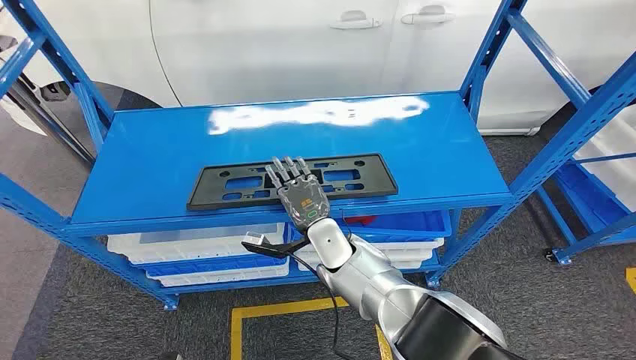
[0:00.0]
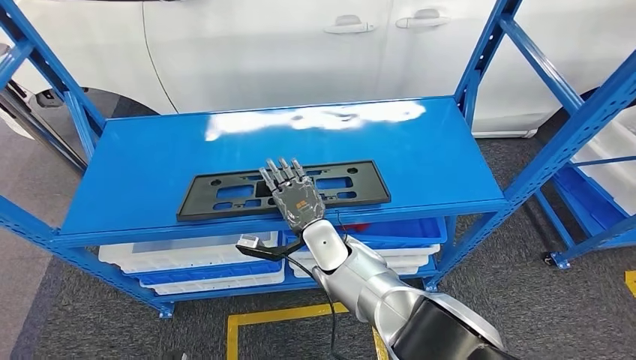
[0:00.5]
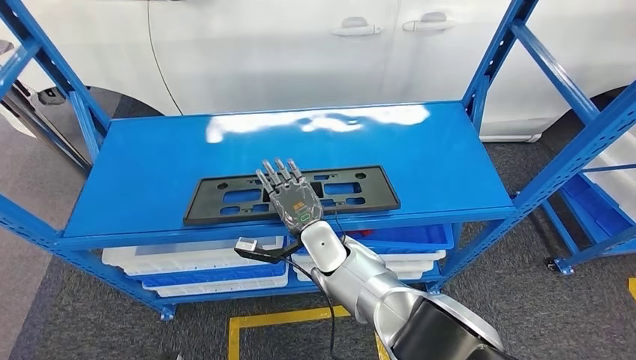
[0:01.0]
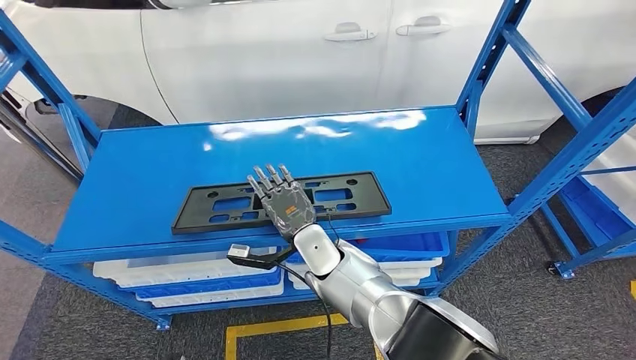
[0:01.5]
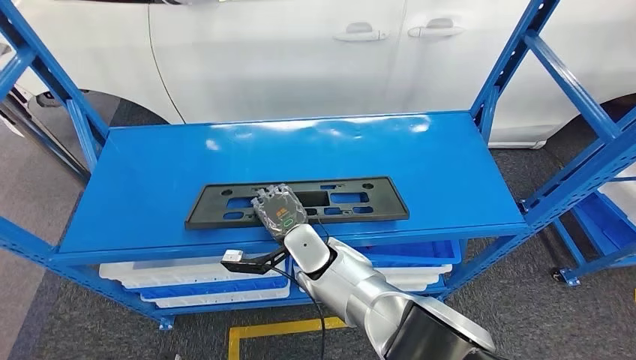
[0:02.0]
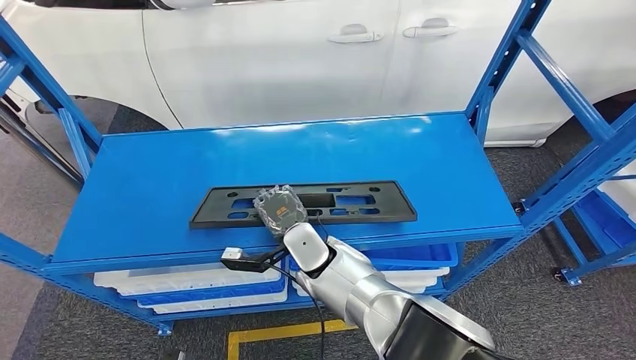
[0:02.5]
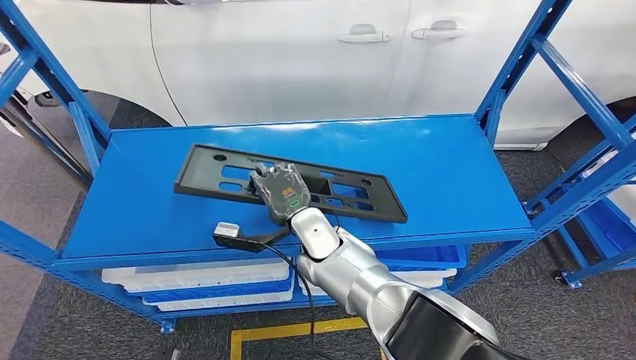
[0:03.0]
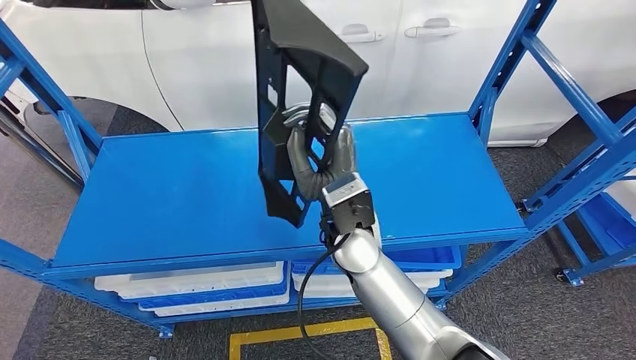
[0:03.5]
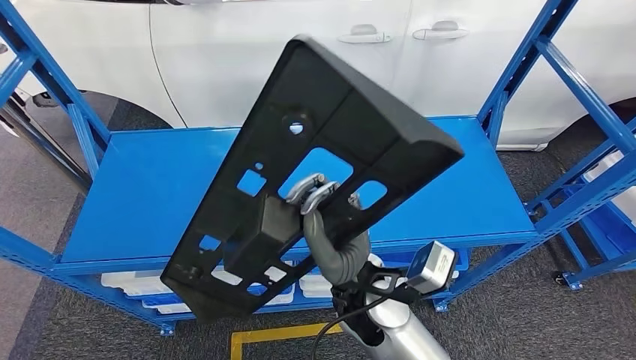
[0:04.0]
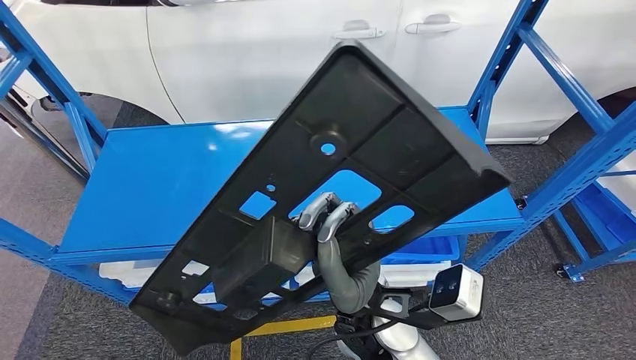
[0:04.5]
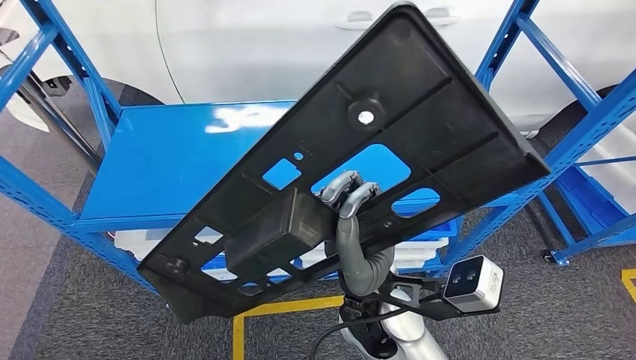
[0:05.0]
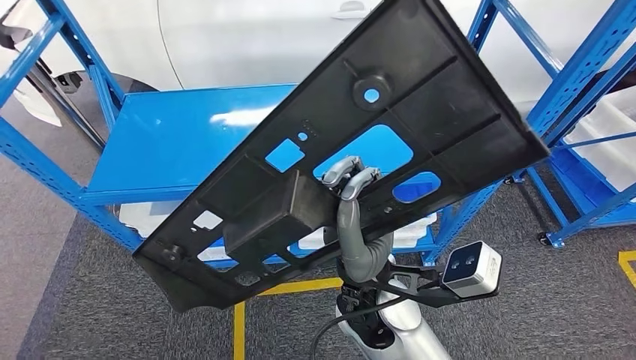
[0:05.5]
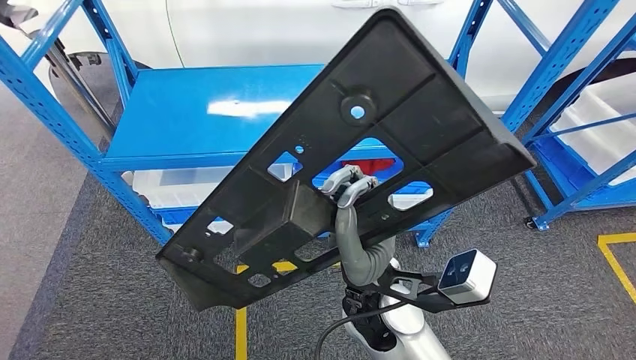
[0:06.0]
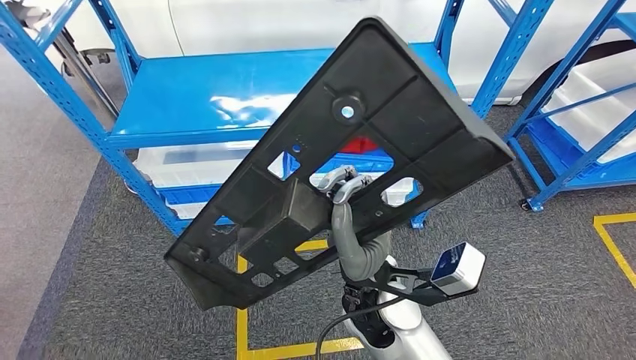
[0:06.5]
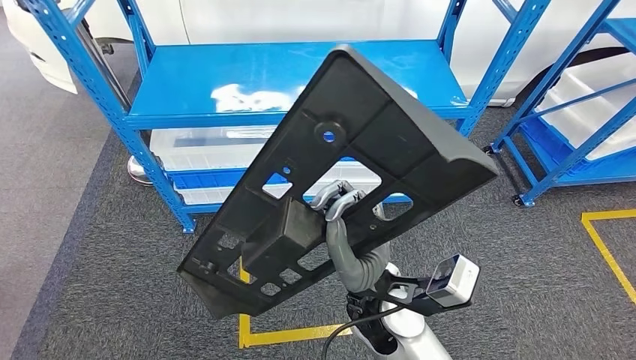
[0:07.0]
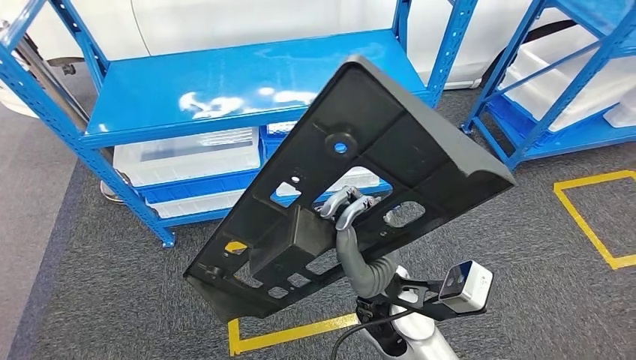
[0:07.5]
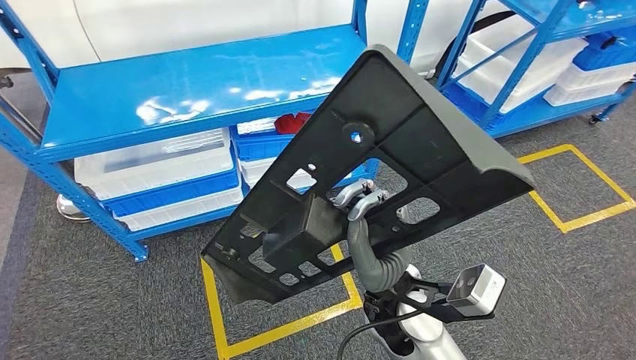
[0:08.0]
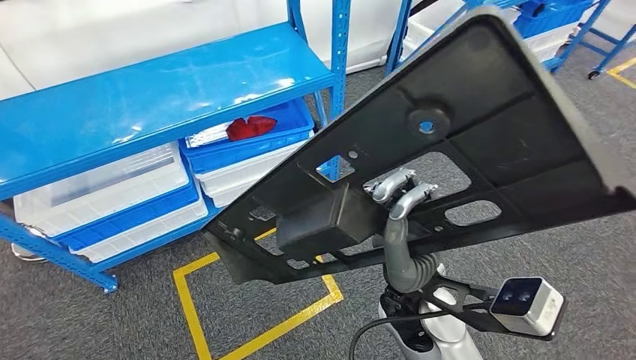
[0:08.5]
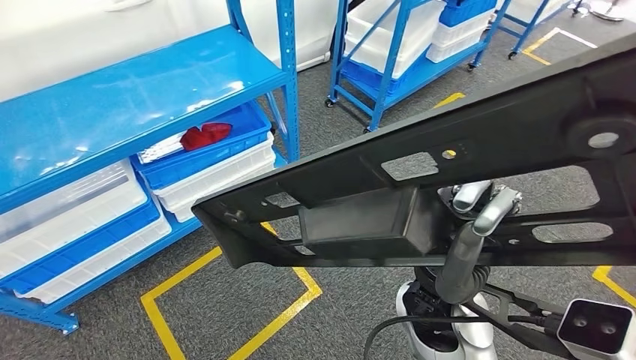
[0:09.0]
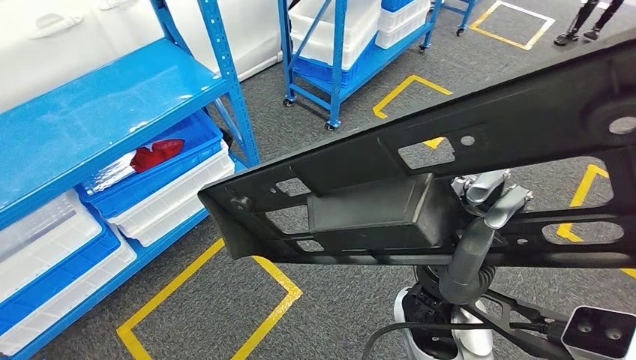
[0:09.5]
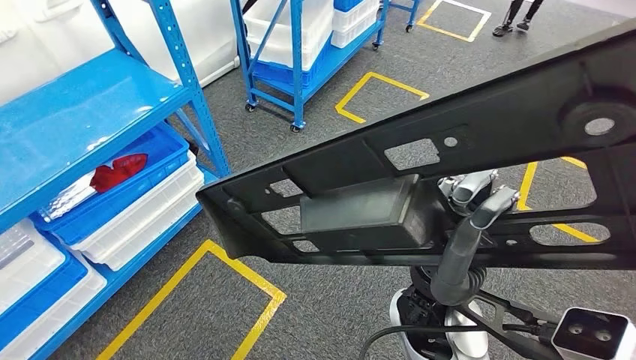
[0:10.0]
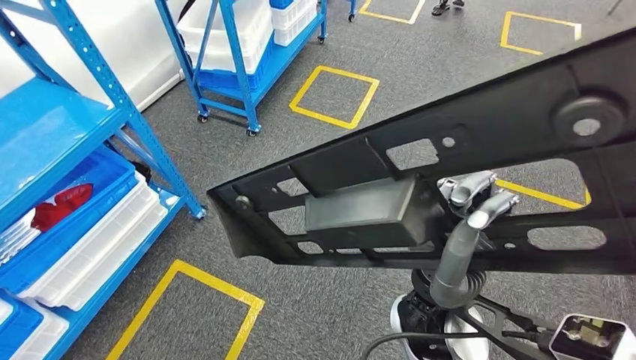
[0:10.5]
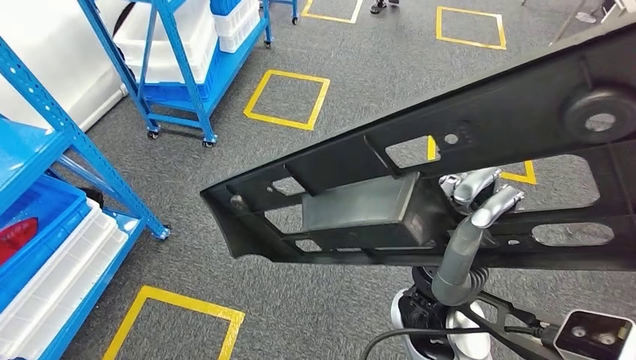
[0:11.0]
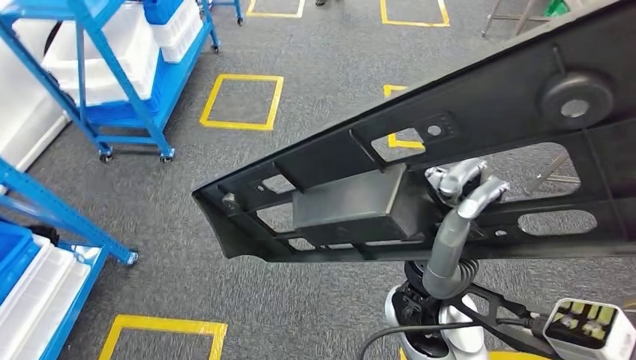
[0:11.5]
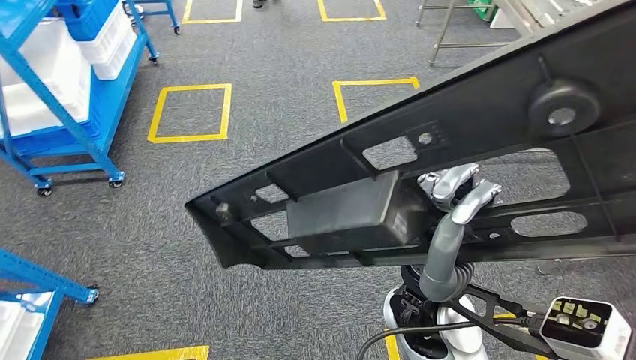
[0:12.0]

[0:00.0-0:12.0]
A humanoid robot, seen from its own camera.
Step, 0:00.0 to 0:03.5: Pick up the large material from the shelf.

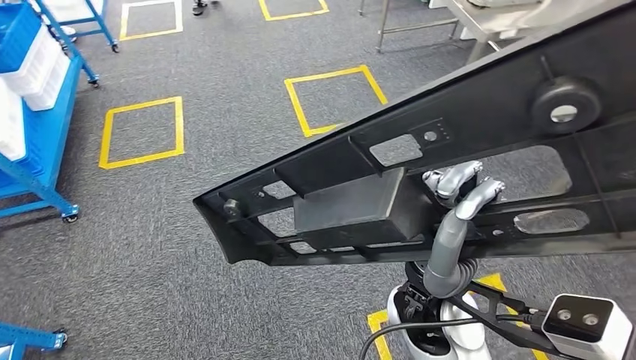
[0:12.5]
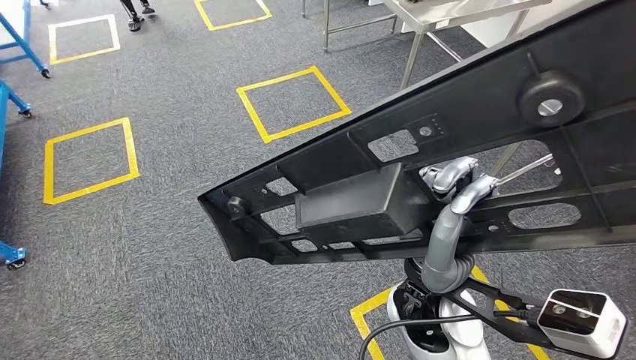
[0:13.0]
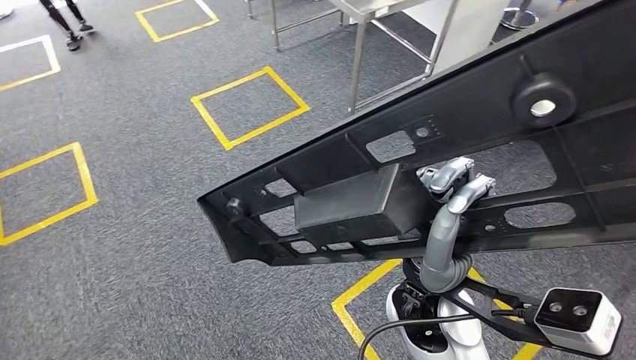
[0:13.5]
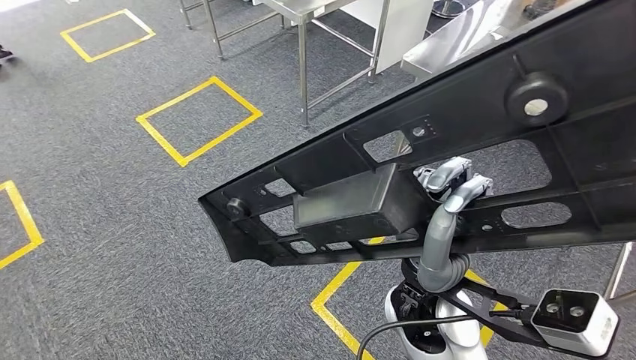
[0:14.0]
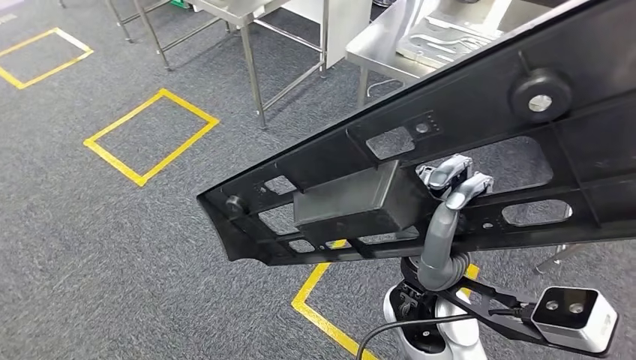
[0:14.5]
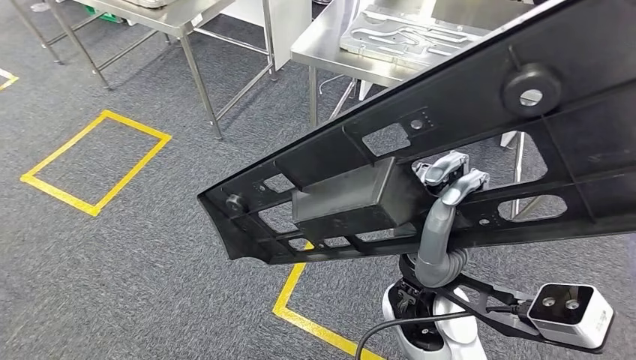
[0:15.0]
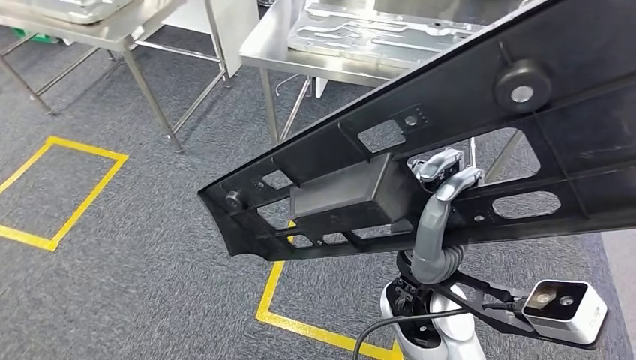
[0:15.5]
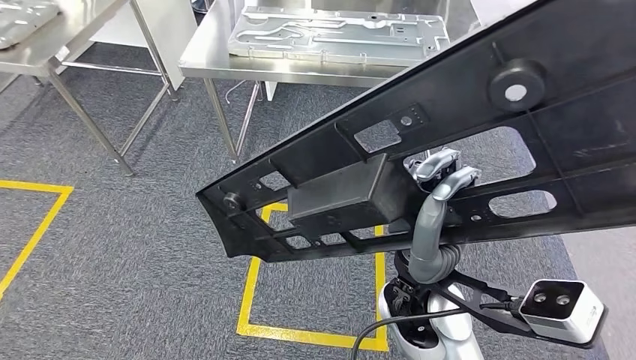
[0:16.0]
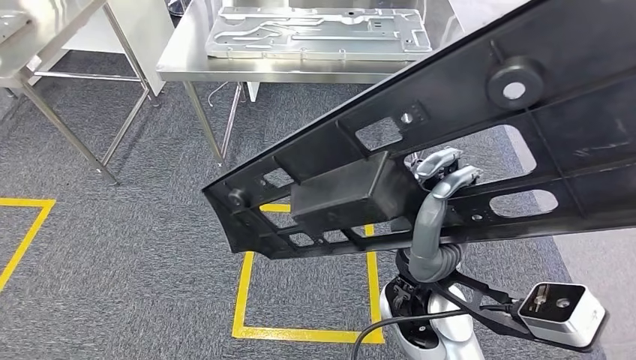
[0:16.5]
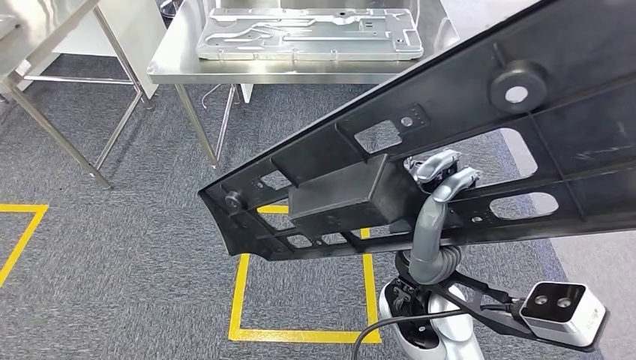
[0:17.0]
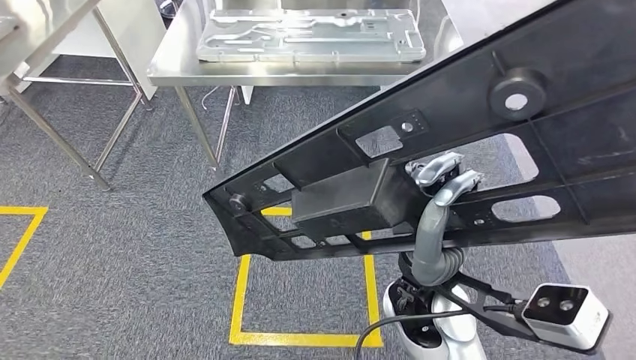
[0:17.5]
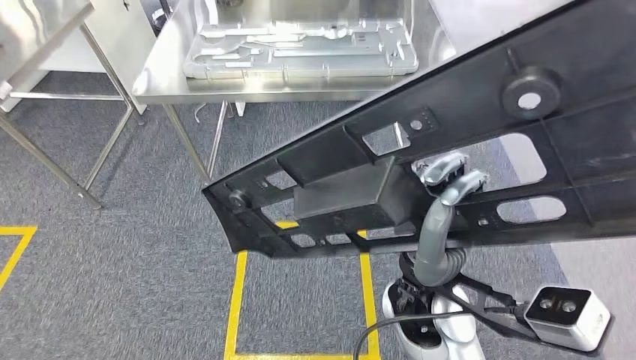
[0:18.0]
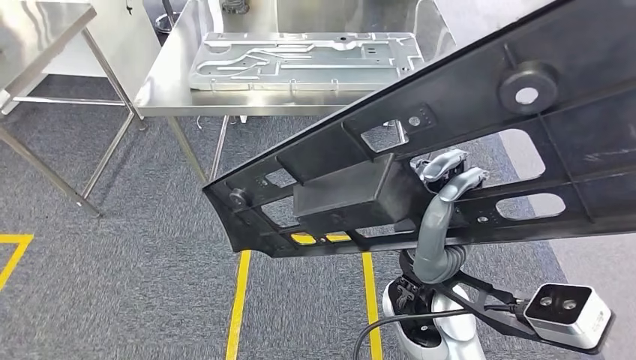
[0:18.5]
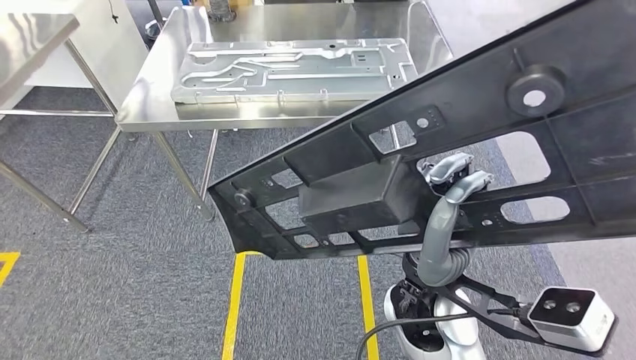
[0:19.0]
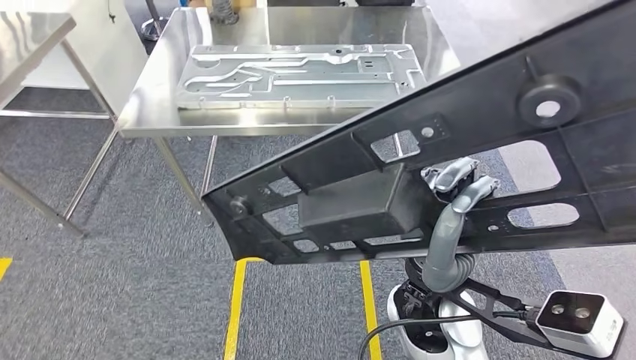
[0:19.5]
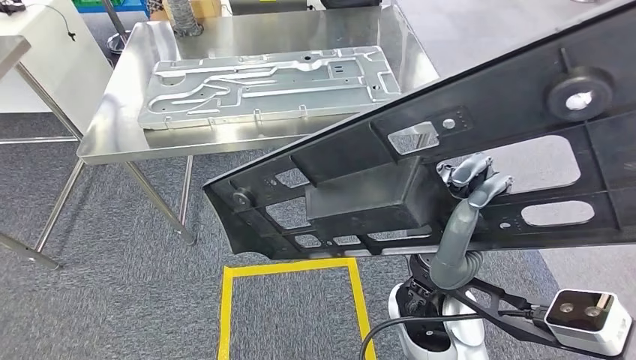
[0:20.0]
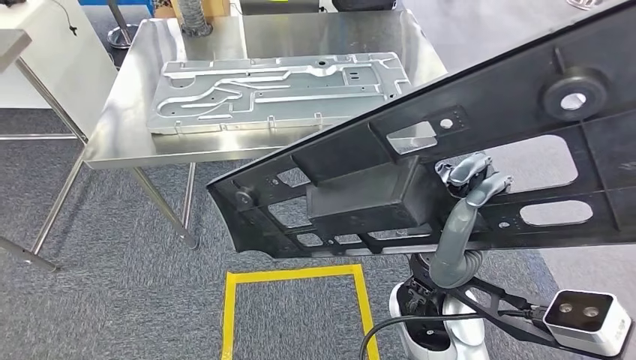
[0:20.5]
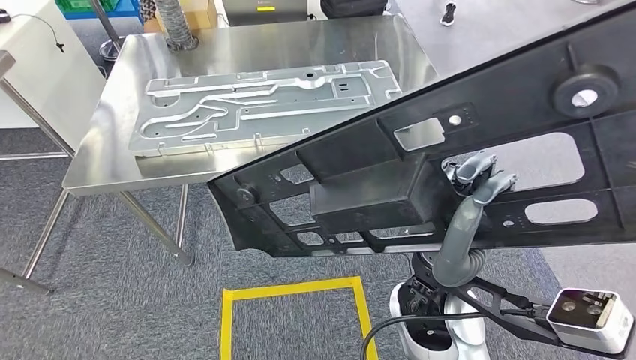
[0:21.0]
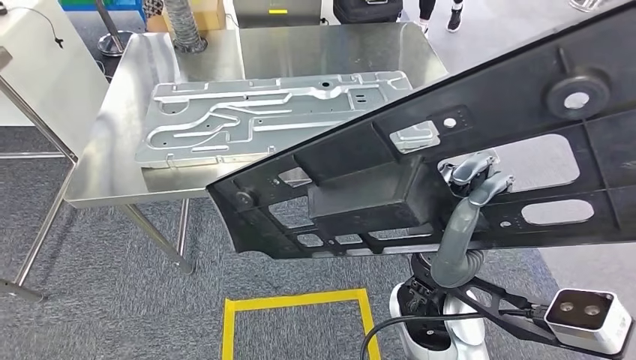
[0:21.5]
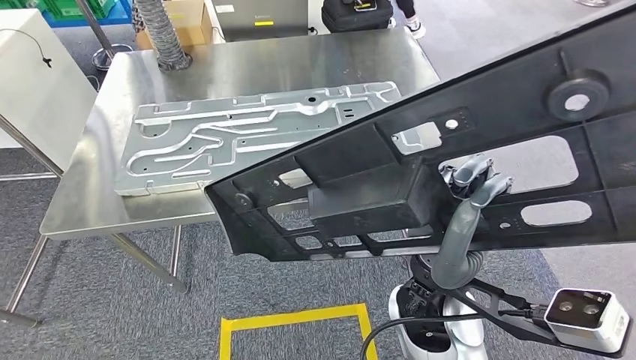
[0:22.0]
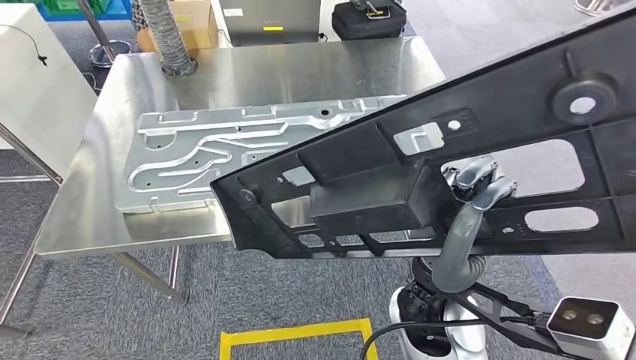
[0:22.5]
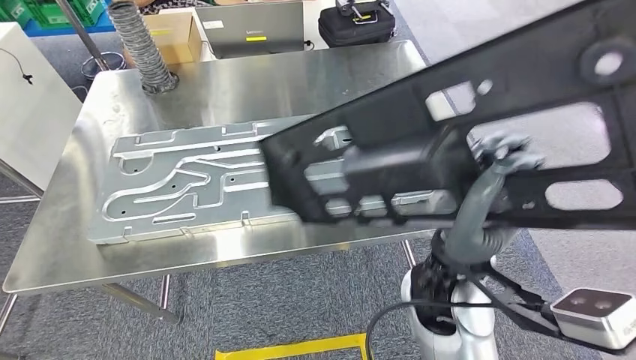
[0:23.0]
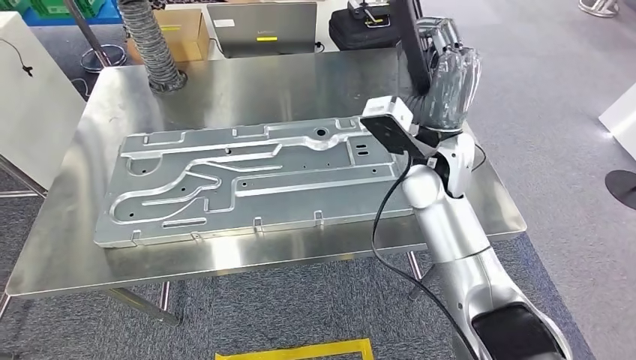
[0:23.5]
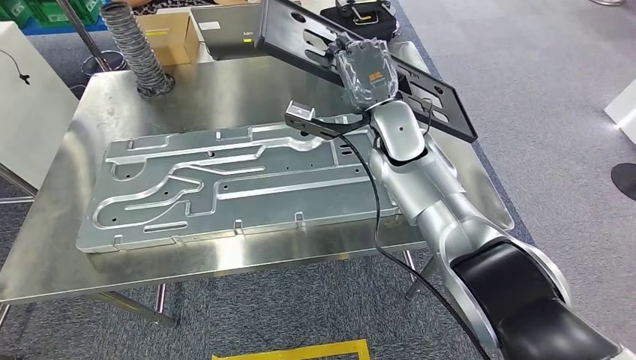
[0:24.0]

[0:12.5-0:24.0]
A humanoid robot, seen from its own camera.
Step, 0:12.5 to 0:22.5: Move the large material to the workbench.
